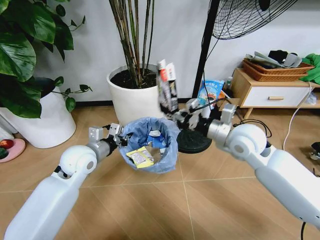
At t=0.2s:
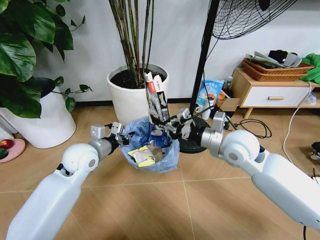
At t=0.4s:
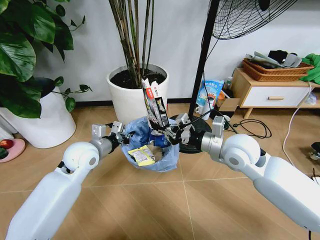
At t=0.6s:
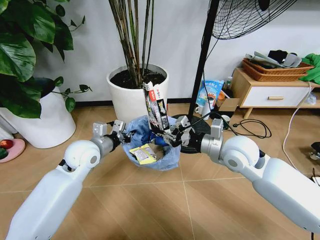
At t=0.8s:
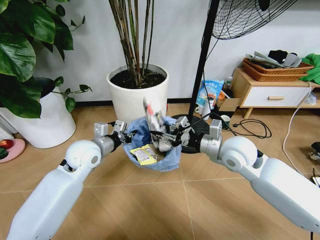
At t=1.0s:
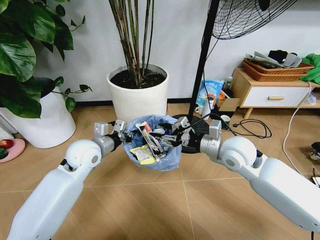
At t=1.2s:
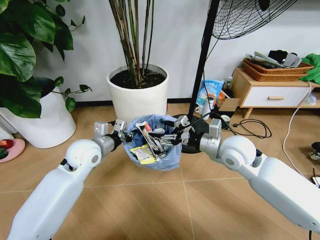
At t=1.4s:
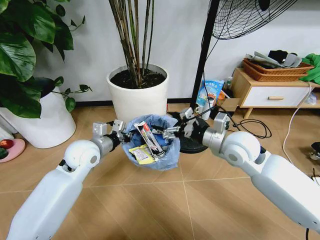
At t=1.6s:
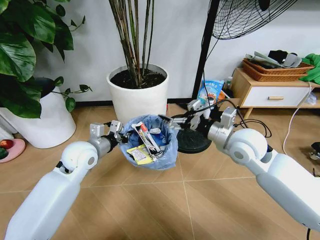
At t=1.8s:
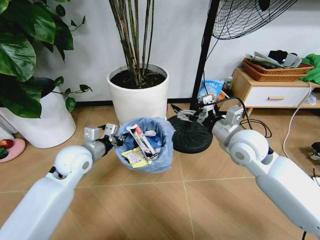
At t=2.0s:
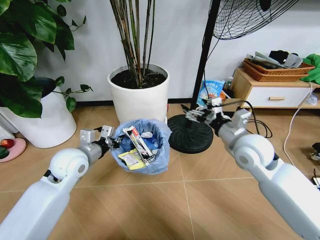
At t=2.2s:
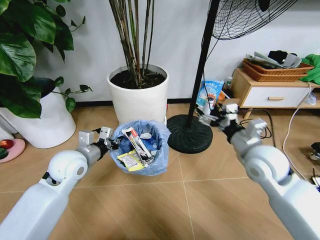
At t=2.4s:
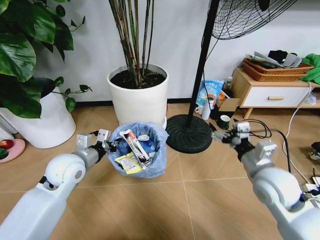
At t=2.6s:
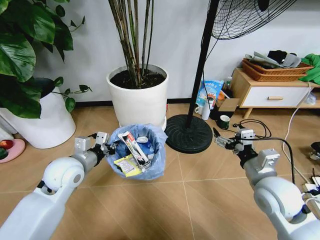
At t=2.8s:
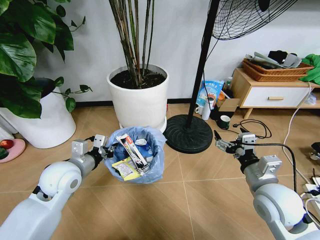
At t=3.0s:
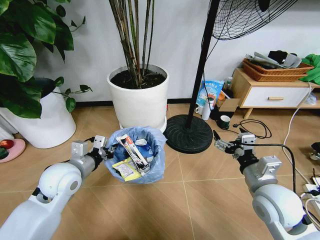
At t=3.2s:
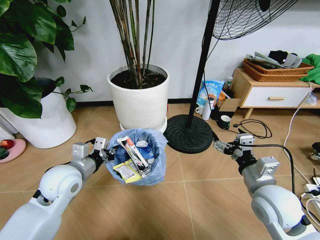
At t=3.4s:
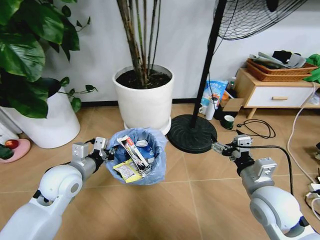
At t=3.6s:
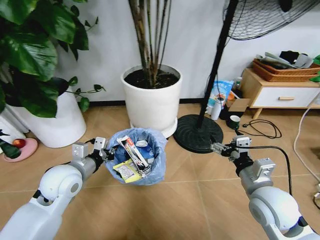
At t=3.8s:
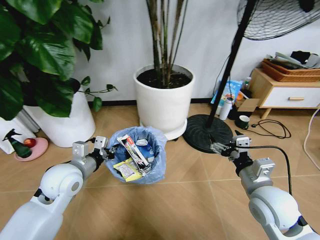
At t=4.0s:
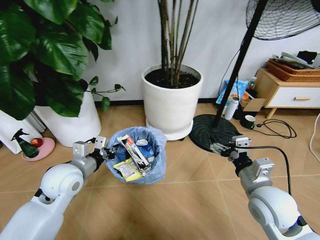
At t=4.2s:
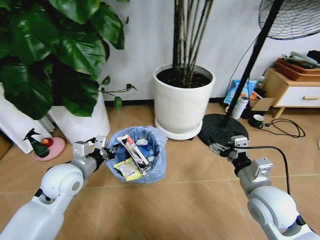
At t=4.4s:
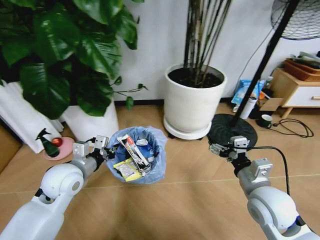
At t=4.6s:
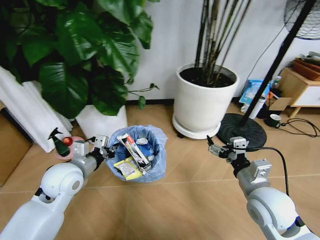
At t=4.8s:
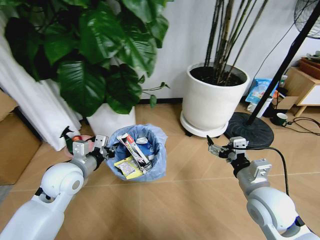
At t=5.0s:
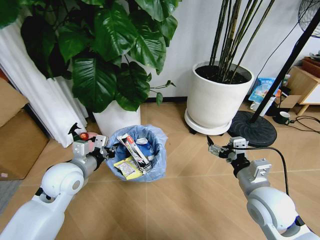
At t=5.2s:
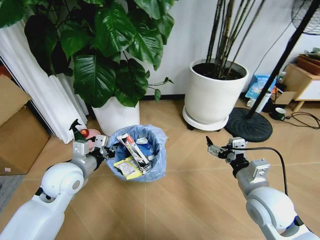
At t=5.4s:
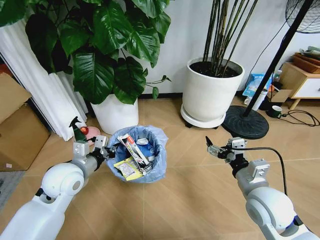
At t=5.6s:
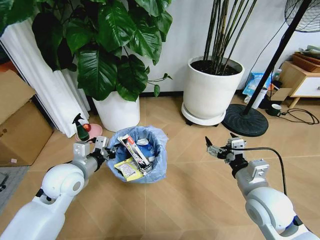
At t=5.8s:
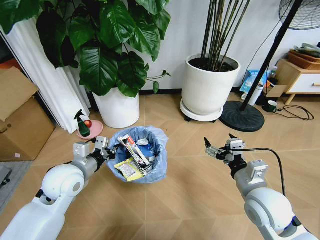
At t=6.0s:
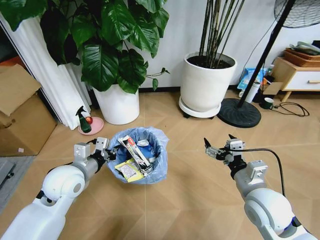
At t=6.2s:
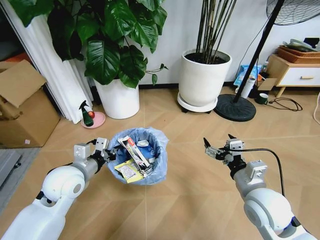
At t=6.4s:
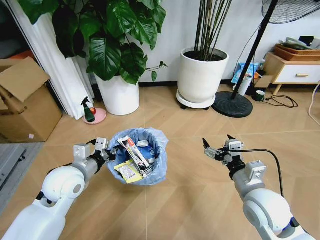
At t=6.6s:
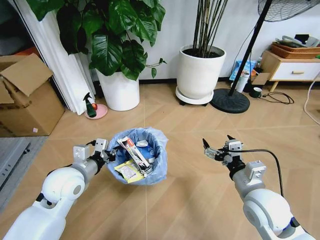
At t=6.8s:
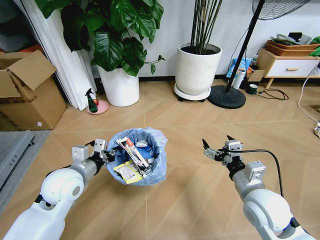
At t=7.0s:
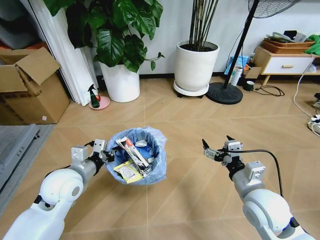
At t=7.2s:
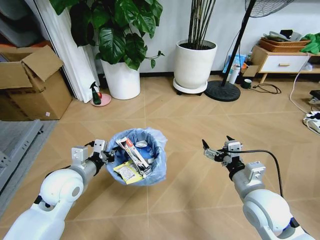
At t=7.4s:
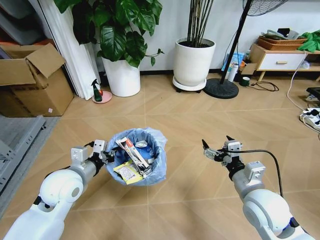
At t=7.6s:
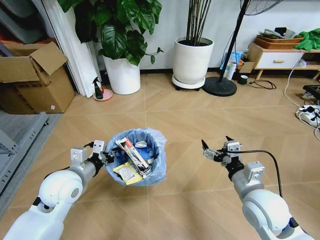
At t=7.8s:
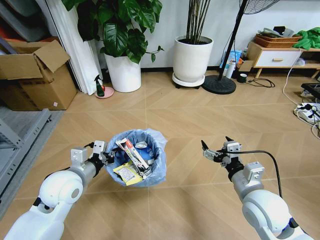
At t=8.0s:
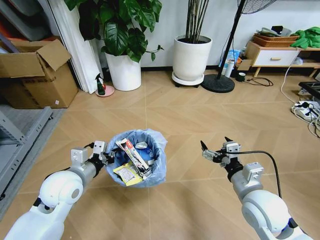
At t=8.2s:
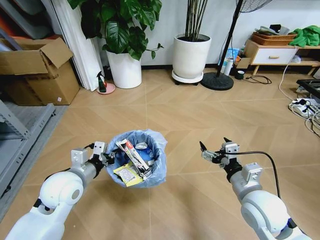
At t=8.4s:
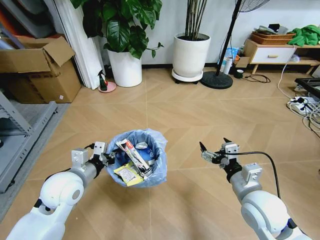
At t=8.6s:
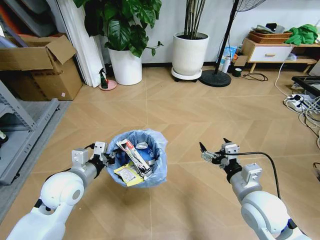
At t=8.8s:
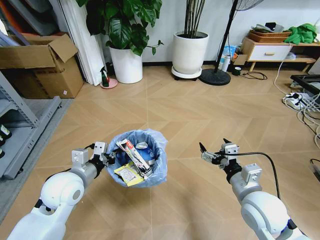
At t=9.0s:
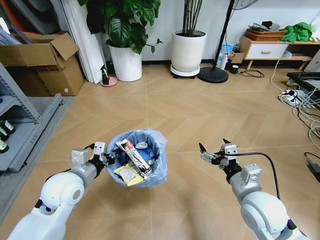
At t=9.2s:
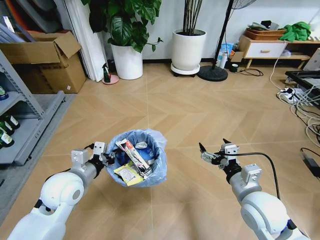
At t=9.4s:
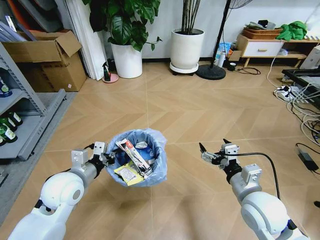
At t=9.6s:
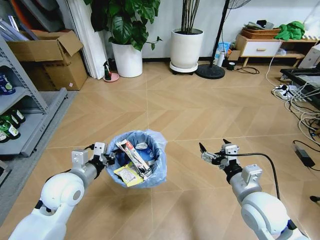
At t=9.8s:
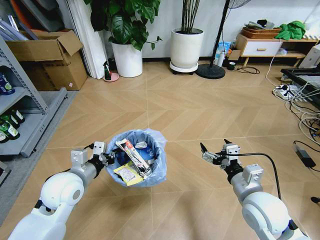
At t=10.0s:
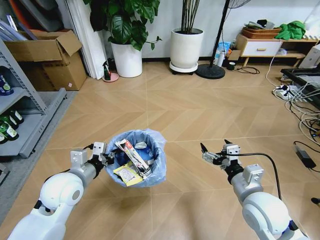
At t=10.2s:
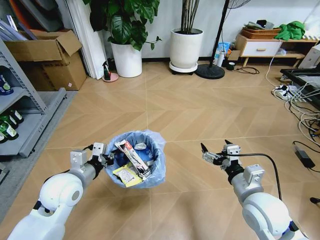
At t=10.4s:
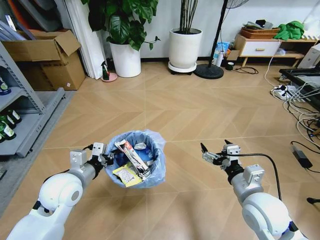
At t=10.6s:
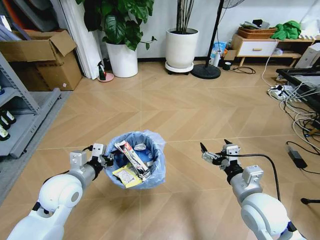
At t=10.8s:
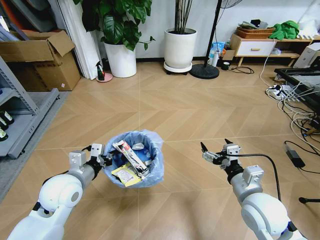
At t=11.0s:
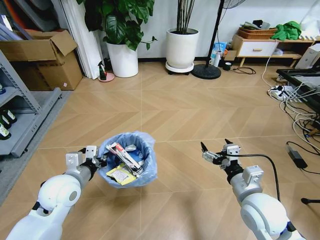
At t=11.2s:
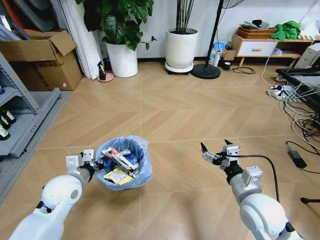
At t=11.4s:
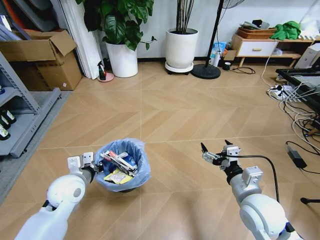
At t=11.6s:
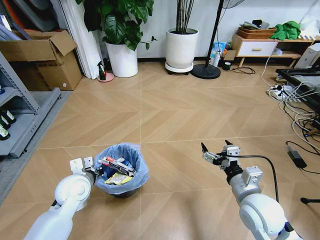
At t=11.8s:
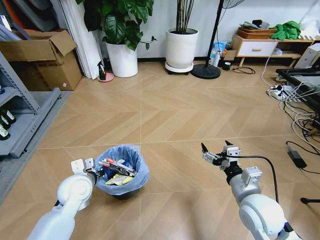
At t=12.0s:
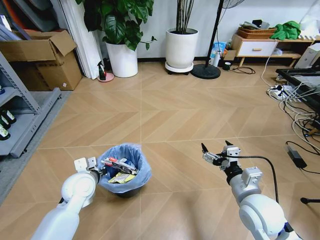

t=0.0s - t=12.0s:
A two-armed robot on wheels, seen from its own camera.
Task of the whole recording: Pick up the trash bin and place the garbage on the floor into it.
t=0.0s - t=1.6s: The right gripper opens.
t=1.6s - t=3.0s: The right gripper heads backward and downward, covering approximately 15 cm; the left gripper heads backward, covering some 5 cm.
t=10.4s - t=12.0s: The left gripper shifts about 5 cm downward.

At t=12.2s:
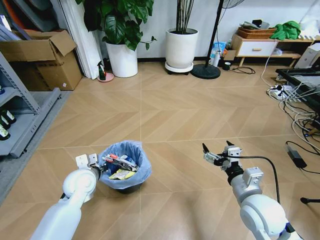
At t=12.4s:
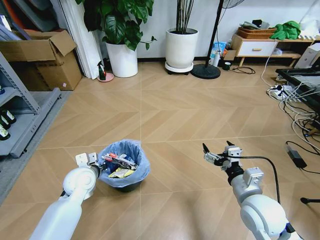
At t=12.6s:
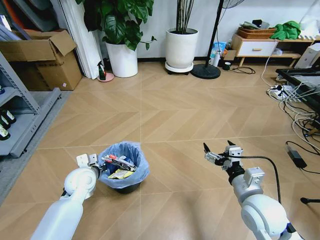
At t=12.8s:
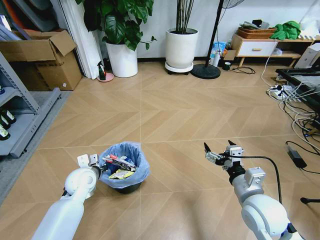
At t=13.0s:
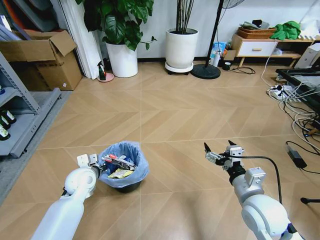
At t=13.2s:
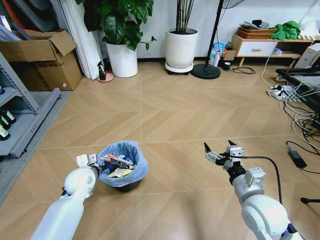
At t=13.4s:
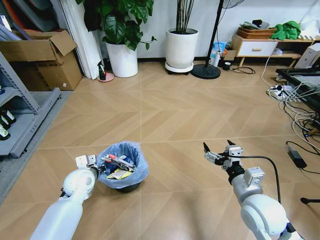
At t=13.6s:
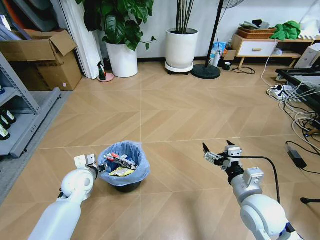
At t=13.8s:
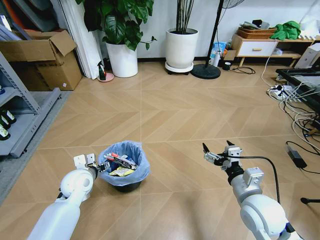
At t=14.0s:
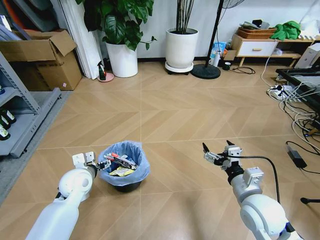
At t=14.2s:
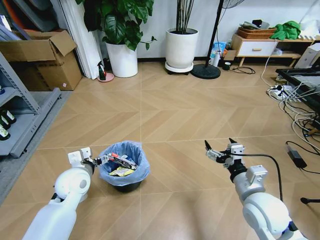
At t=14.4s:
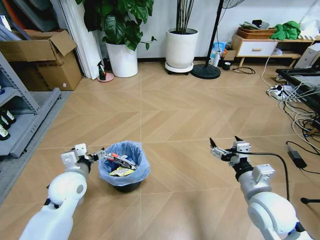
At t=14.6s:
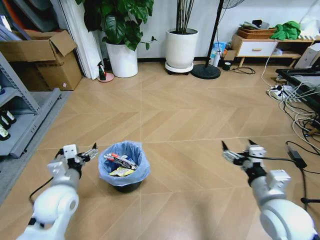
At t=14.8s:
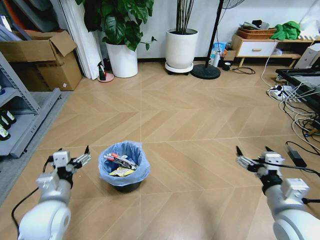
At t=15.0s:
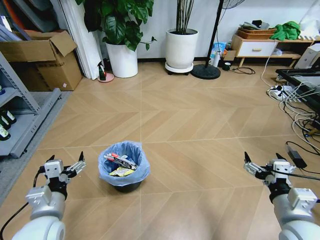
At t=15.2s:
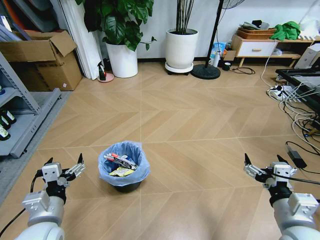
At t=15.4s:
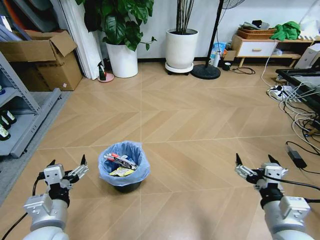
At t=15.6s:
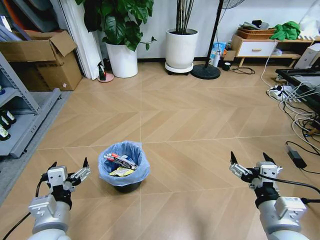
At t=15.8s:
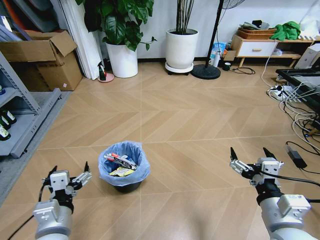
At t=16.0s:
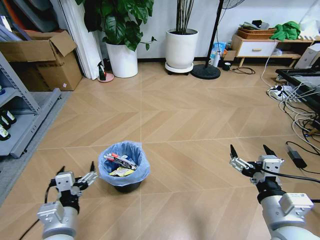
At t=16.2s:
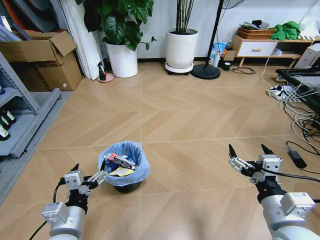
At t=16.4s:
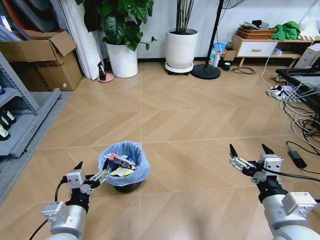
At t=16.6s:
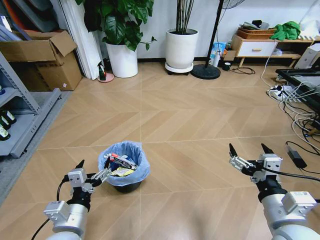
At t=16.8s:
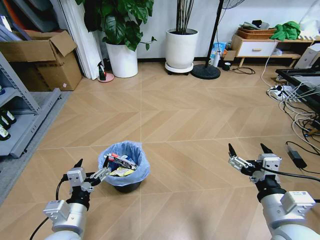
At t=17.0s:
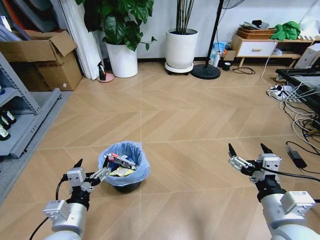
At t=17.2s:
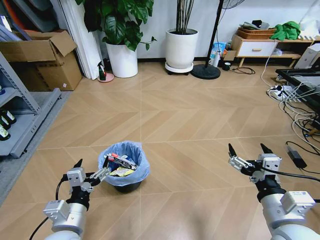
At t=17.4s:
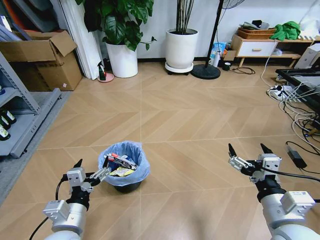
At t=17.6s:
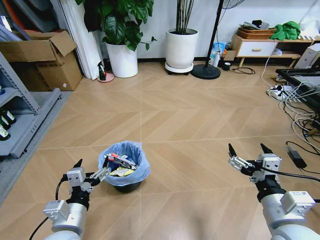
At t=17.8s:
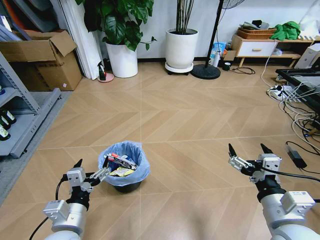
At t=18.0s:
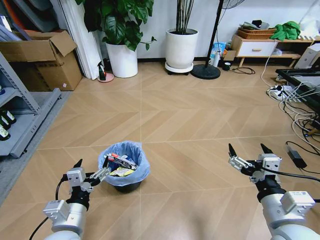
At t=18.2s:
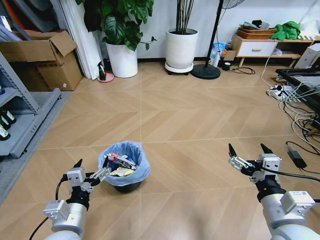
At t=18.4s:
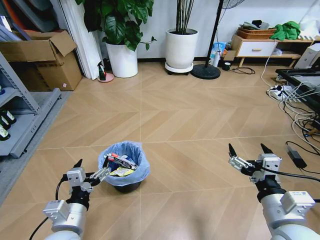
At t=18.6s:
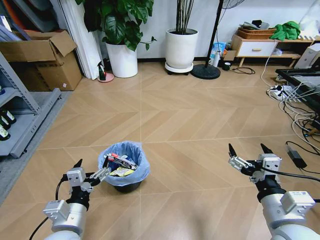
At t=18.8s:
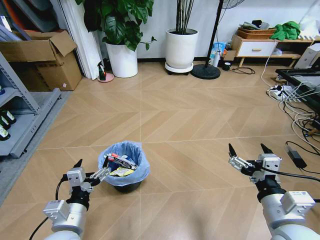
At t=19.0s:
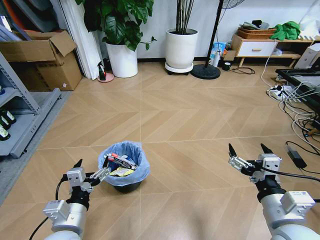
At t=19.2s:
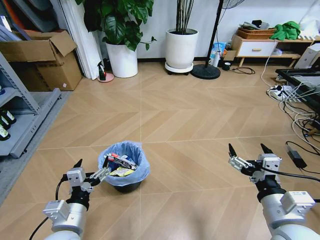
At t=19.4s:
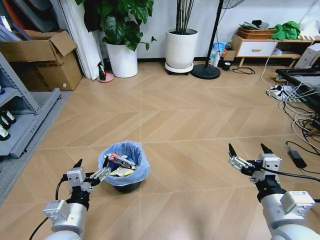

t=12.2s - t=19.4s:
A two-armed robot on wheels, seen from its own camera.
Task of the whole recording: Pick up the trash bin and place the garbage on the floor into it.
t=12.2s - t=13.6s: The left gripper opens up.
t=13.6s - t=15.0s: The right gripper goes some 10 cm backward and to the right. Meanwhile the left gripper goes approximately 15 cm backward, and opens its fingers.
t=15.0s - t=16.6s: The left gripper is displaced to the right by approximately 5 cm. The right gripper moves approximately 5 cm.
t=16.6s - t=19.4s: Both grippers stay about where they are.
